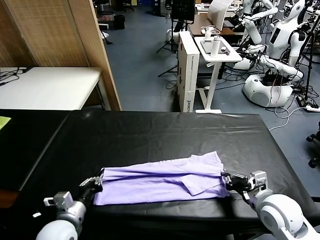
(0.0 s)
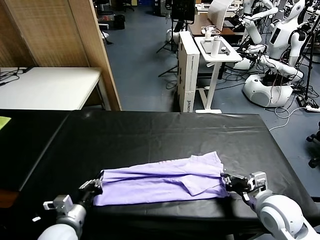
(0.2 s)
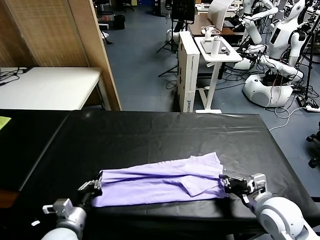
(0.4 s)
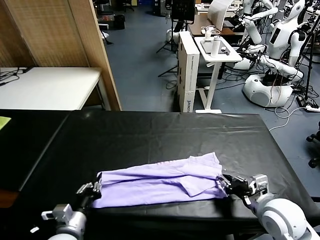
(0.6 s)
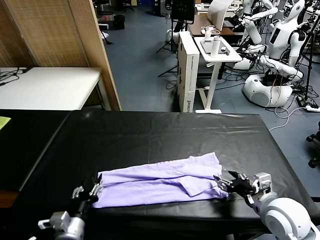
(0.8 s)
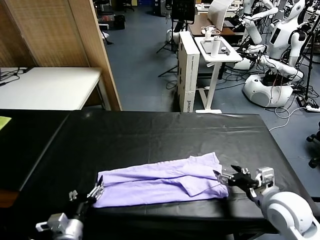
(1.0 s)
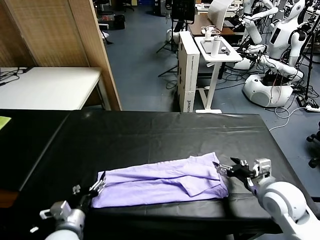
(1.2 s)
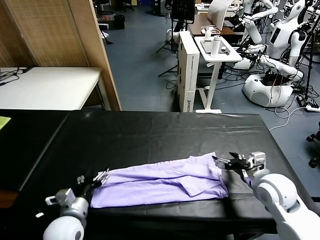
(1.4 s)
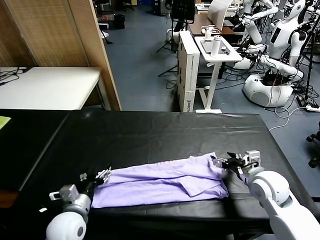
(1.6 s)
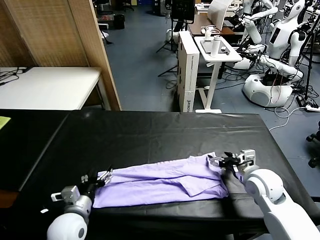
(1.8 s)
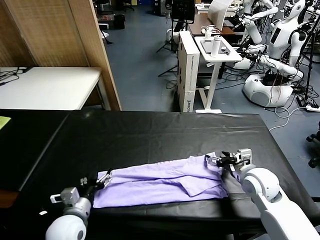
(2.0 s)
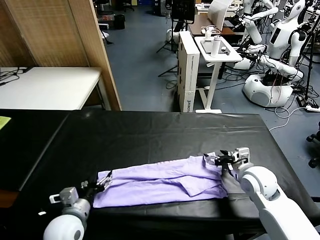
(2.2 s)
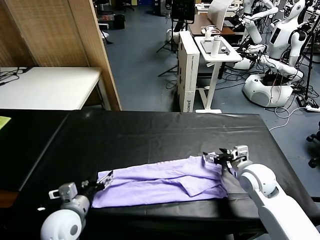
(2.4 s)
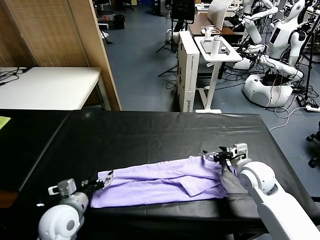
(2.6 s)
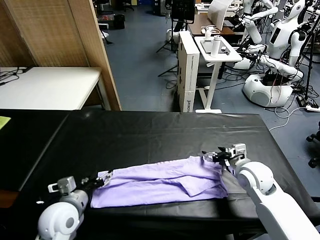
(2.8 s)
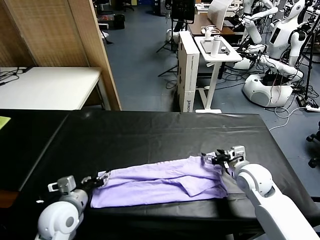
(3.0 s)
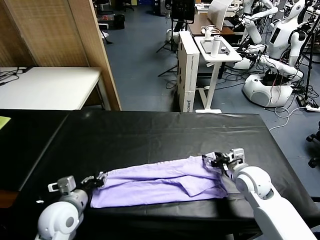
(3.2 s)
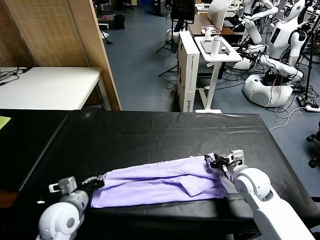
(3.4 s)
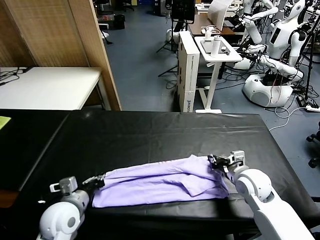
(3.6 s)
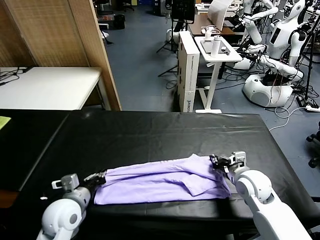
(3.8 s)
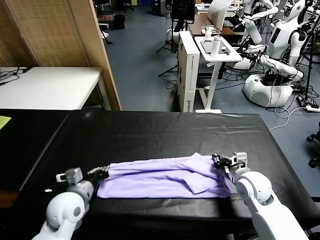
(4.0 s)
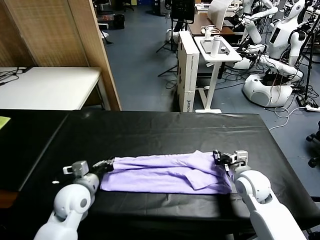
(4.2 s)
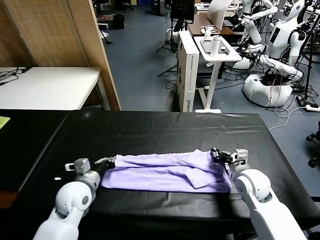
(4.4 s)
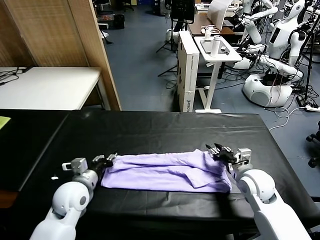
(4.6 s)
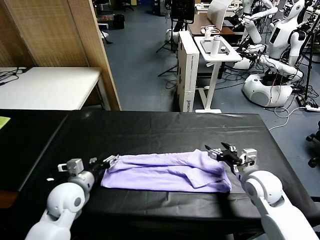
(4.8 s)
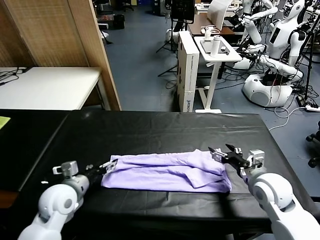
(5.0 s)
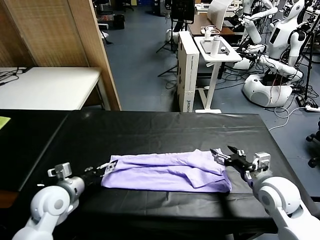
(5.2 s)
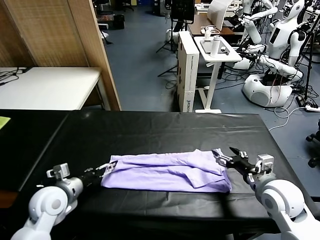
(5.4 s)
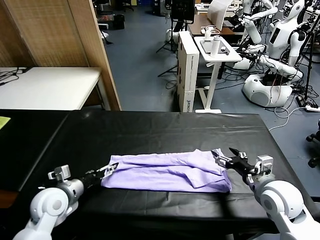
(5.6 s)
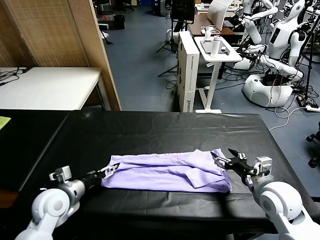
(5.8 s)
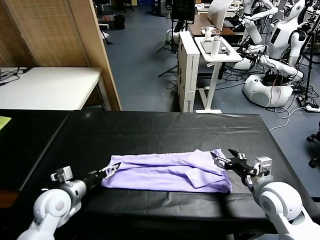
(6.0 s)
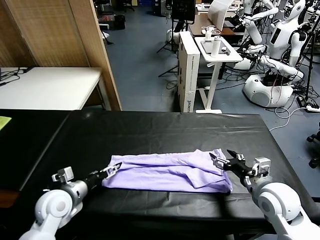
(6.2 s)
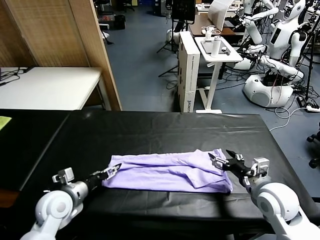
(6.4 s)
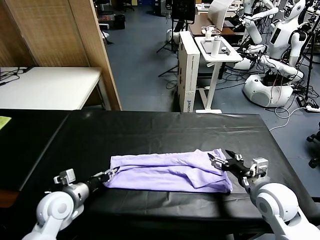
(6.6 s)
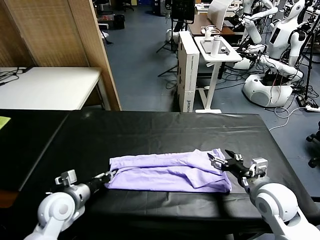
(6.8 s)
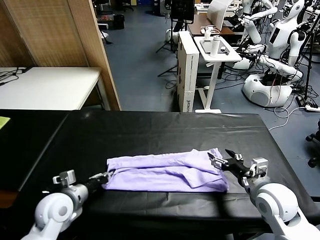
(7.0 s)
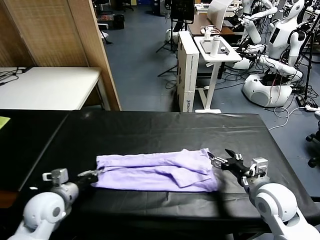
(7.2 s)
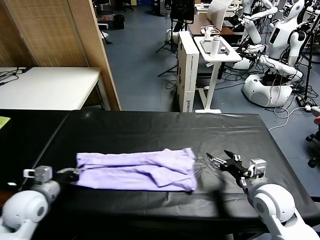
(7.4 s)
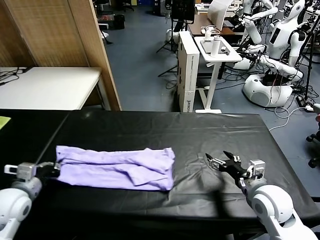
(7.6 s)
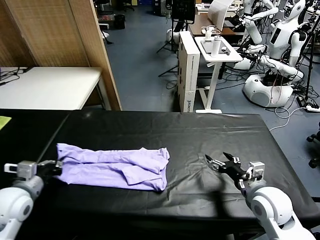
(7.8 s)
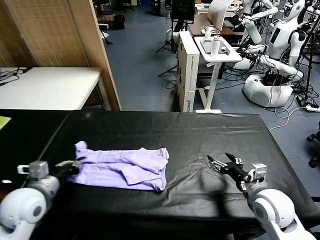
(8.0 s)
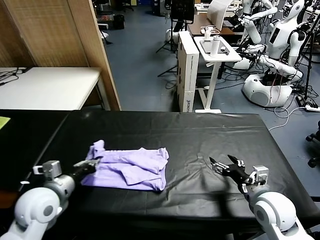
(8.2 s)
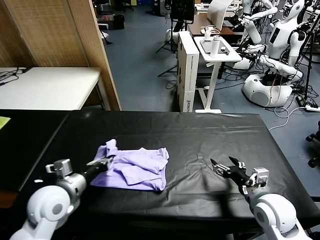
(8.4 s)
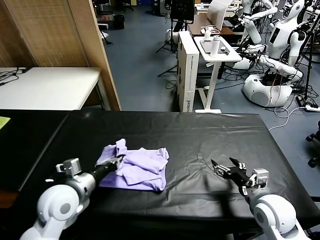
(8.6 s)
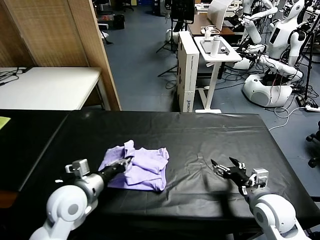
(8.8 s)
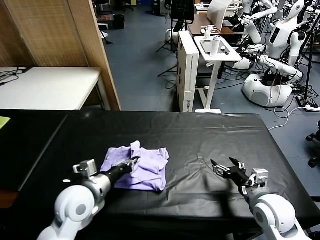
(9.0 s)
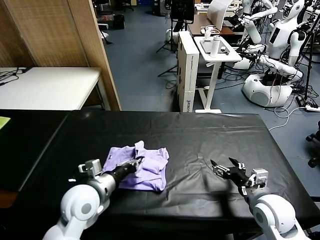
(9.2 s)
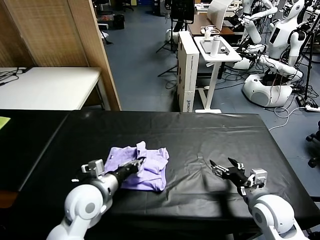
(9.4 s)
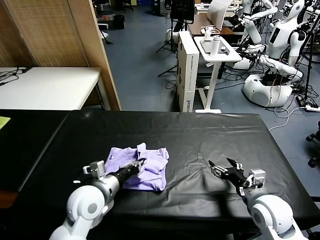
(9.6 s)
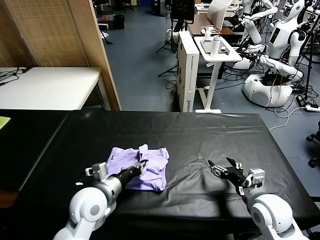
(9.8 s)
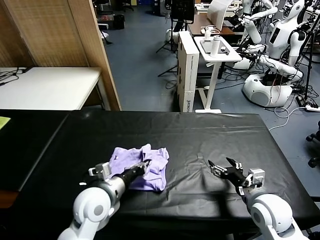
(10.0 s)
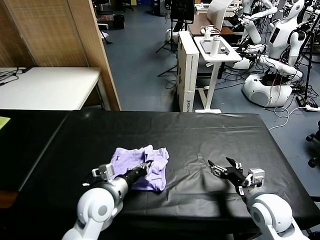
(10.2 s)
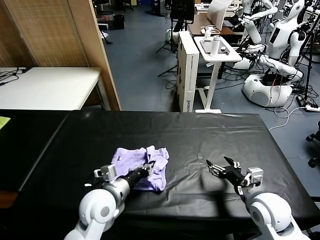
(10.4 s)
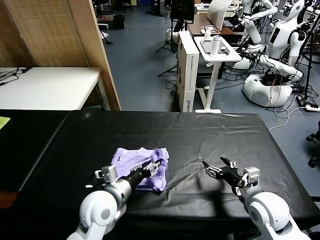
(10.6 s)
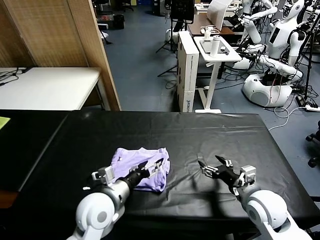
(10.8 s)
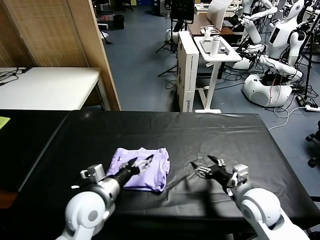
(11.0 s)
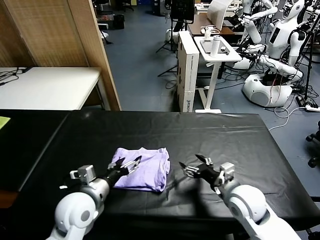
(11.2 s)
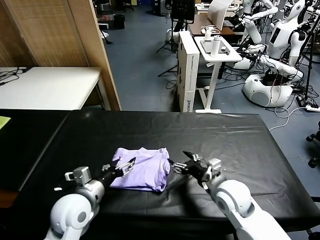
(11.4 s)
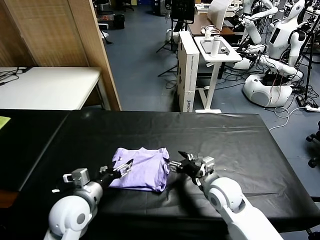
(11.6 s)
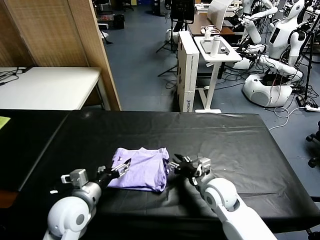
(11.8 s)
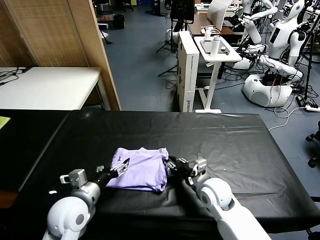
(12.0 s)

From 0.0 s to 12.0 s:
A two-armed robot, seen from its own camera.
Task of the whole recording: fold and organize the clothes.
Step, from 1.0 s to 6.8 s: use the left gripper to clamp the left edge of the fabric.
Step, from 7.0 s to 10.8 s: use the left gripper to drag the left edge of the fabric to the left and folds it over the right edge.
From 0.0 s to 1.6 s: The right gripper heads forward, covering some 10 cm, and opens; the left gripper opens.
From 1.6 s to 3.0 s: The left gripper closes up.
From 3.0 s to 4.4 s: The right gripper closes, while the left gripper is displaced forward by about 5 cm, and closes up.
From 4.4 s to 6.0 s: The left gripper shifts some 5 cm to the left, and opens up; the right gripper heads backward, covering roughly 5 cm, and opens up.
From 6.0 s to 7.6 s: The left gripper shifts approximately 10 cm to the left and upward, and closes up.
From 7.6 s to 9.0 s: The left gripper shifts roughly 20 cm to the right.
From 9.0 s to 10.4 s: The left gripper travels to the right by approximately 5 cm.
From 10.4 s to 12.0 s: The left gripper goes roughly 5 cm to the left, and opens; the right gripper goes some 15 cm to the left, forward and downward, and closes up.

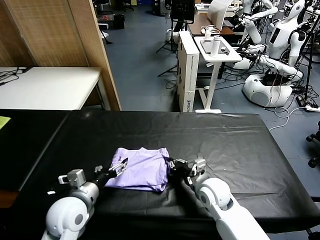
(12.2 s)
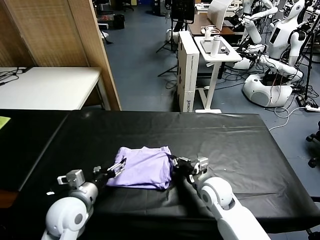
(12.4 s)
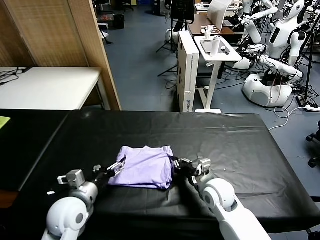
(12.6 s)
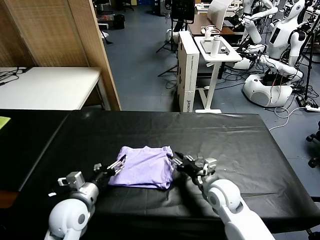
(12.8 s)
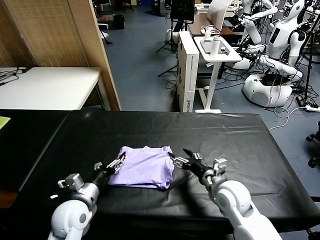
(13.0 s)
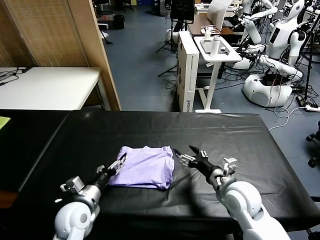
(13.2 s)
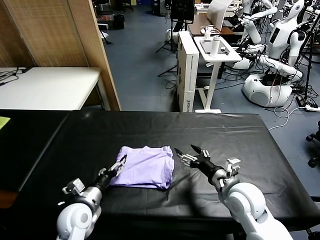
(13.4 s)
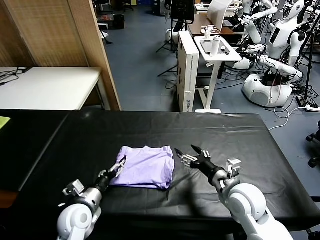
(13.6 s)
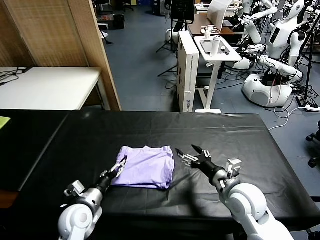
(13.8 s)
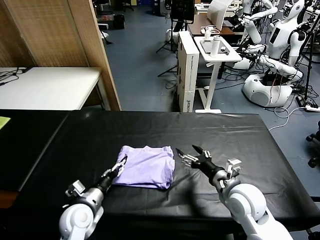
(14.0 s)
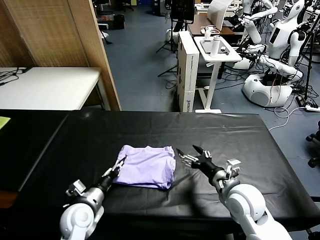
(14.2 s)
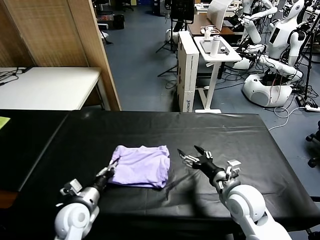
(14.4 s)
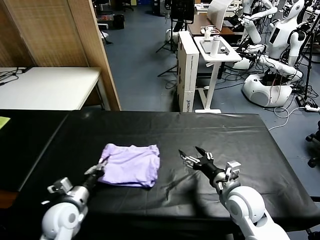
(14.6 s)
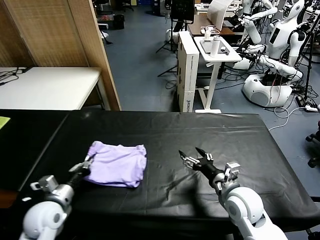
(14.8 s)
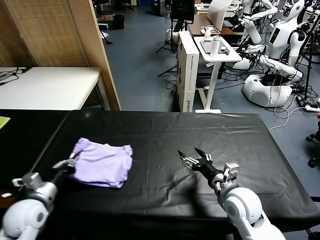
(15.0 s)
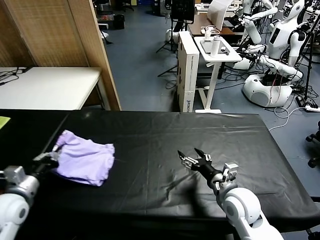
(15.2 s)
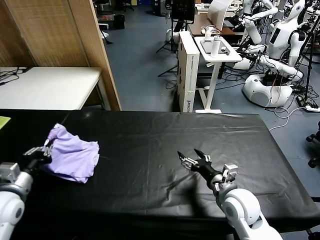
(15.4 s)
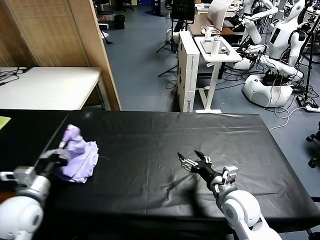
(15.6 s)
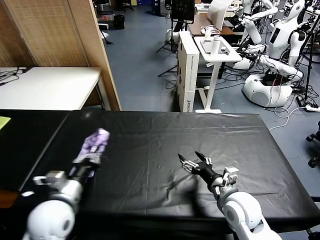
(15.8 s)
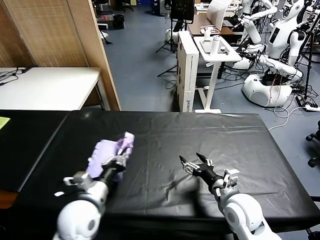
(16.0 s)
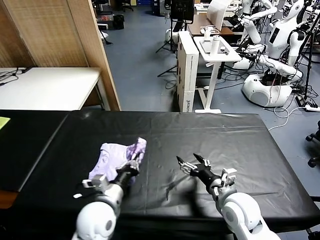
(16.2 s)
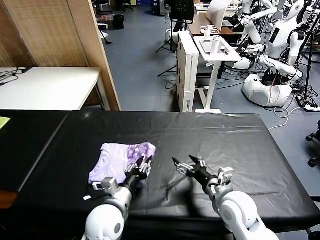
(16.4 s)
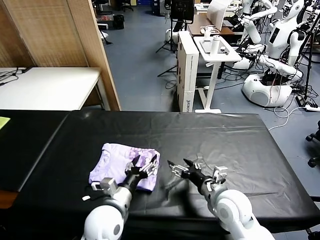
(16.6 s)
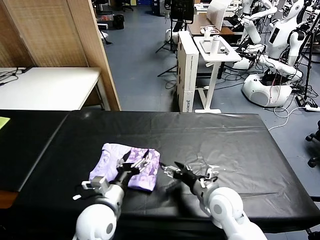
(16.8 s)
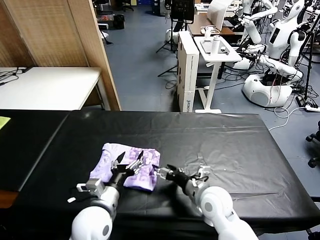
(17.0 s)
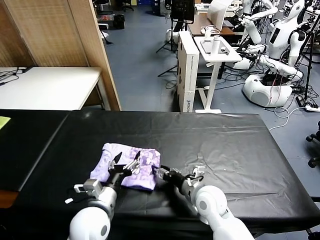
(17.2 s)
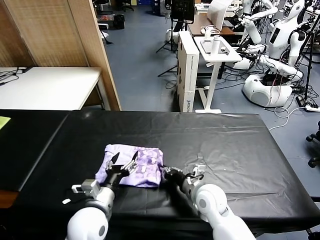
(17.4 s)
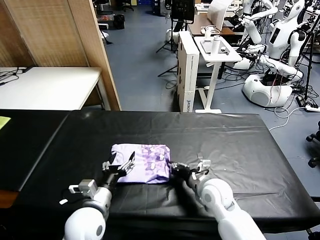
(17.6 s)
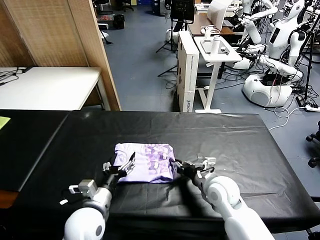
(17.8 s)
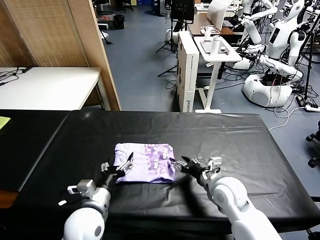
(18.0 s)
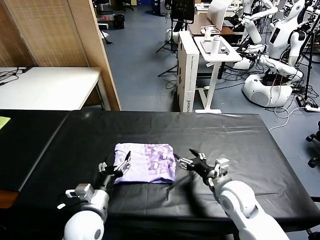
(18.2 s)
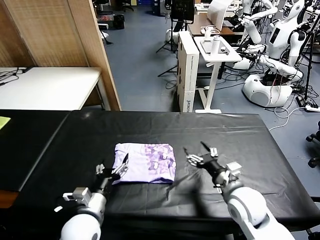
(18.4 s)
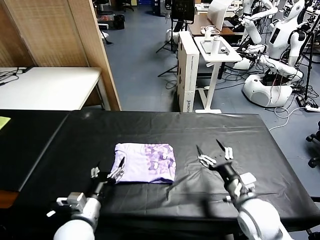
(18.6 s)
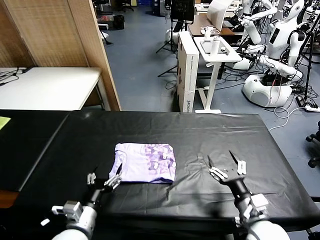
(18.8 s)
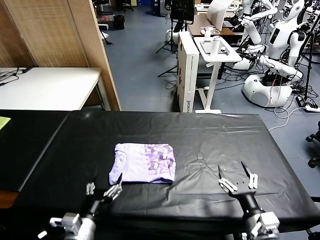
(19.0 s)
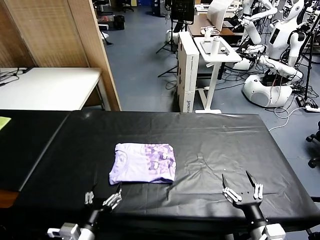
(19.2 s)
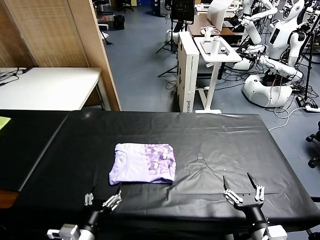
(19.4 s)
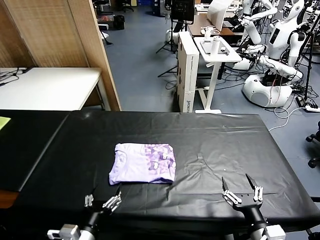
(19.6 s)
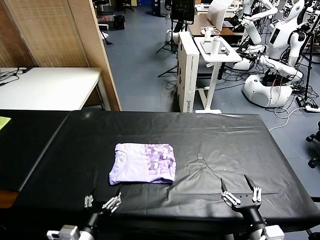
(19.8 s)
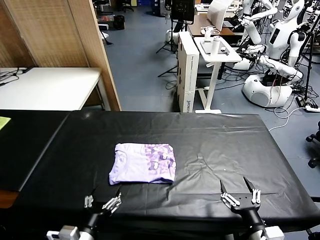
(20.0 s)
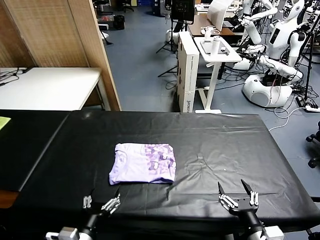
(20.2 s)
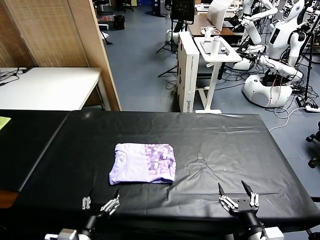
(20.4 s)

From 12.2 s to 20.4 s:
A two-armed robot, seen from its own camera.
Task of the whole recording: fold and organize the clothes.
Step, from 12.2 s to 16.6 s: Flip the folded clothes over with left gripper.
Step, from 16.8 s to 18.0 s: Drag the clothes to the center of the table.
From 12.2 s to 13.8 s: The right gripper moves upward, to the right and backward, approximately 10 cm, and opens up. Meanwhile the left gripper moves downward, roughly 10 cm.
From 13.8 s to 15.4 s: The left gripper shifts about 20 cm to the left and upward, and closes its fingers.
From 15.4 s to 17.2 s: The left gripper goes approximately 25 cm to the right, and opens its fingers; the right gripper heads to the left, covering approximately 5 cm.
From 17.2 s to 18.8 s: The right gripper moves to the right and backward, some 15 cm, and closes, then reopens, while the left gripper is displaced to the left by approximately 5 cm.
From 18.8 s to 20.4 s: The two grippers go about 10 cm backward.

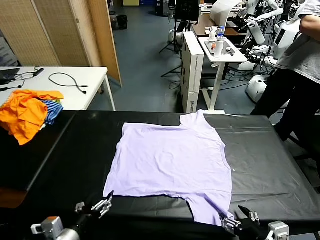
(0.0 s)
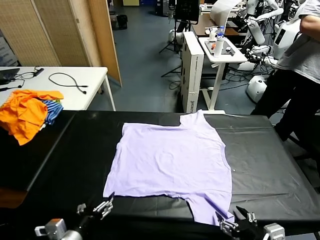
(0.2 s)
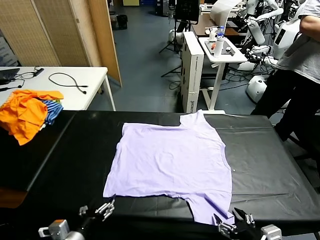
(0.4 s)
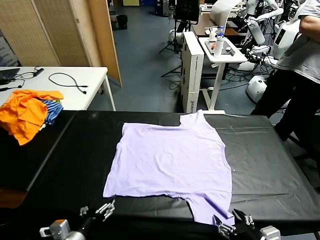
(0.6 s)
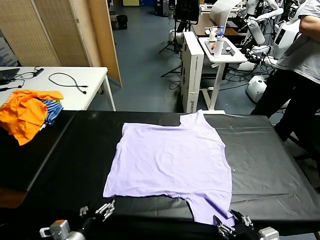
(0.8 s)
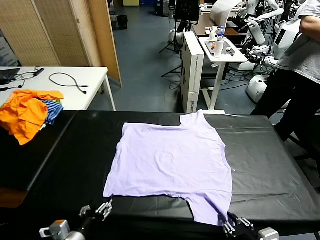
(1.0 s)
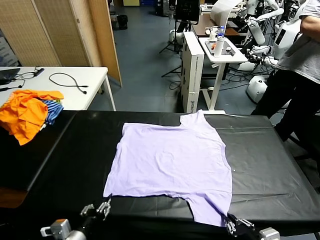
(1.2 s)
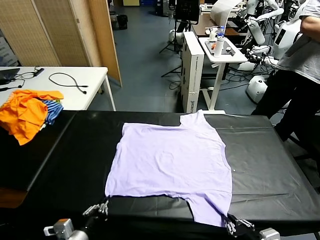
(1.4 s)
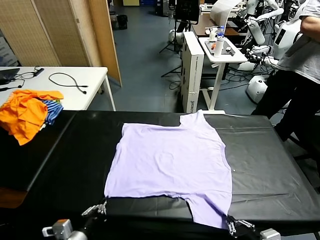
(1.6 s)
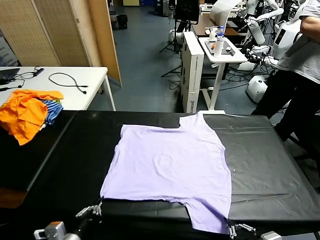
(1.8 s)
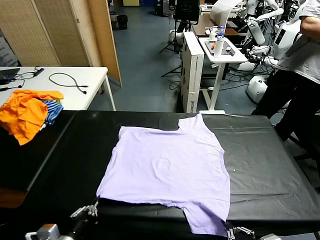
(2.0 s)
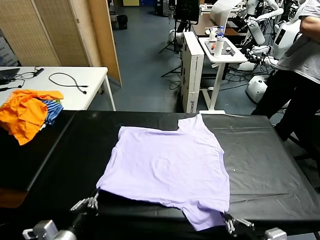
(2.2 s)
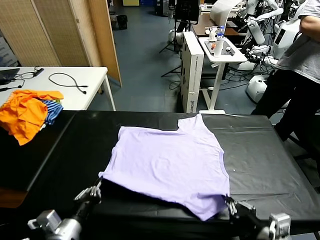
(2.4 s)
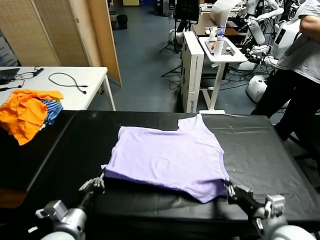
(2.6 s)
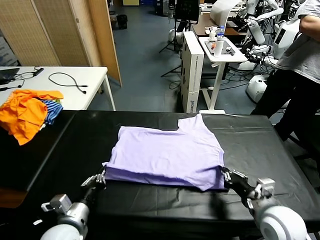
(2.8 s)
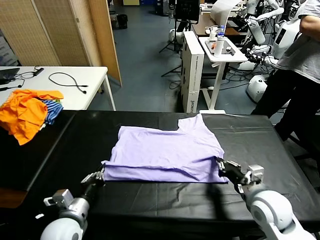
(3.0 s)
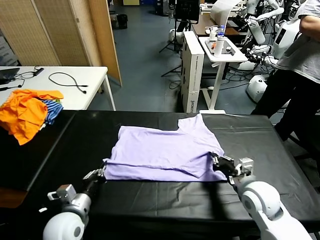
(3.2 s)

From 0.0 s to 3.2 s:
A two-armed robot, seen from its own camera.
Task of the whole recording: fold and organize the clothes.
Step, from 0.0 s to 1.6 s: use both grippers simultaneously to clamp the lower edge of the clothing fabric.
From 1.6 s to 3.2 s: The right gripper heads forward, covering some 25 cm. Meanwhile the left gripper goes about 10 cm forward.
